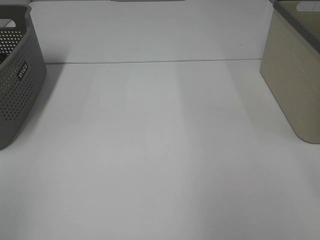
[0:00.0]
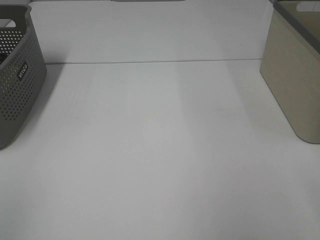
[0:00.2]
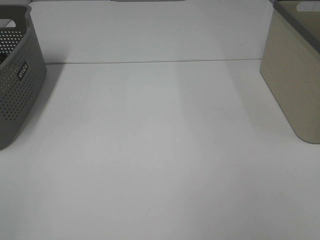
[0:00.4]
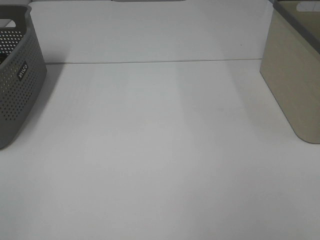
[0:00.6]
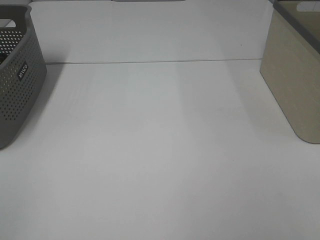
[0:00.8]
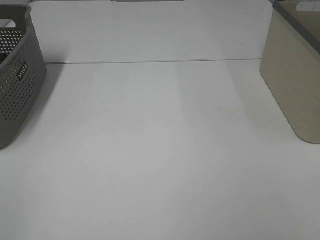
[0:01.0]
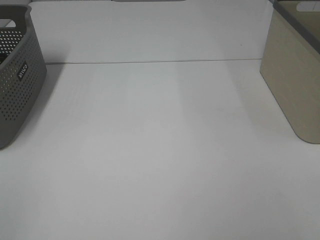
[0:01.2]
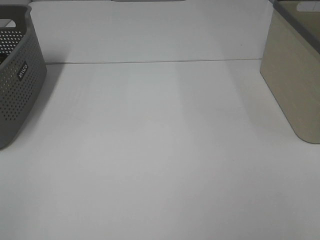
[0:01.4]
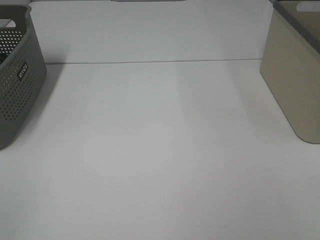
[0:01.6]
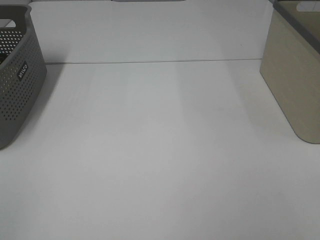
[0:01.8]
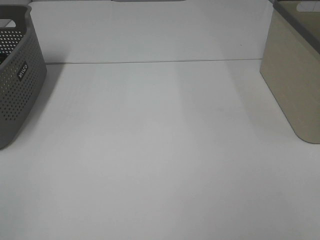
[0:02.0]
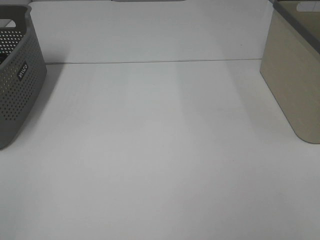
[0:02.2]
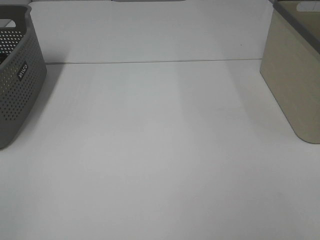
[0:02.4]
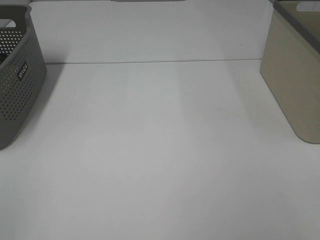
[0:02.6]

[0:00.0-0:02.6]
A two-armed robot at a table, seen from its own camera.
1.2 to 2.6 s: Both grippers stay put.

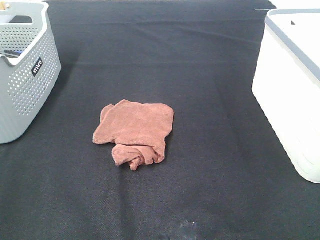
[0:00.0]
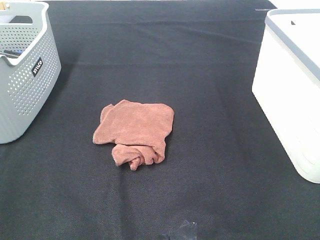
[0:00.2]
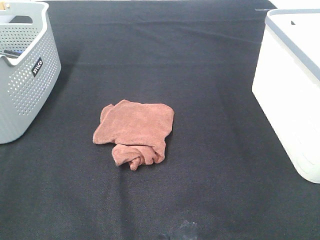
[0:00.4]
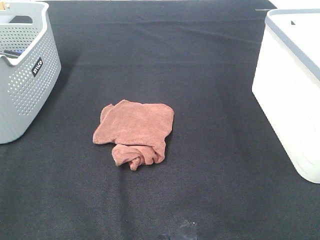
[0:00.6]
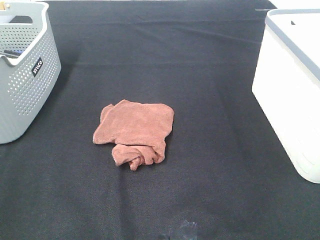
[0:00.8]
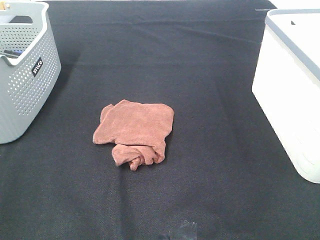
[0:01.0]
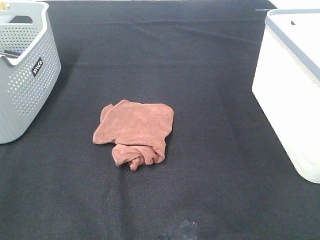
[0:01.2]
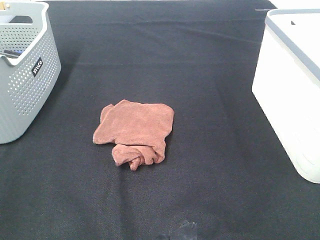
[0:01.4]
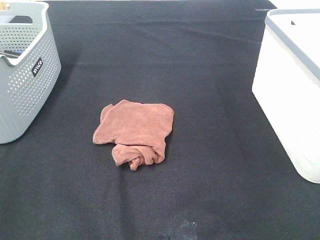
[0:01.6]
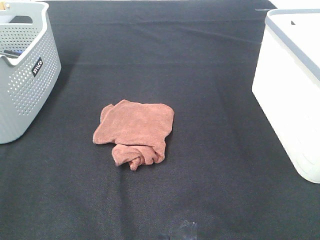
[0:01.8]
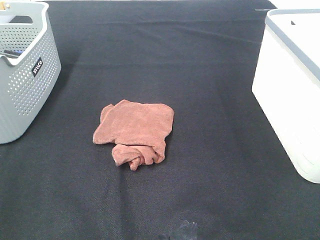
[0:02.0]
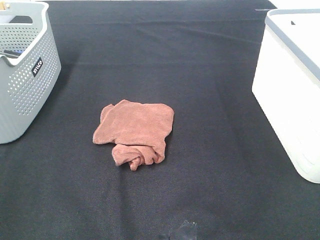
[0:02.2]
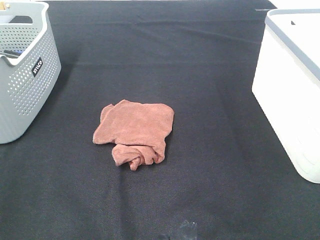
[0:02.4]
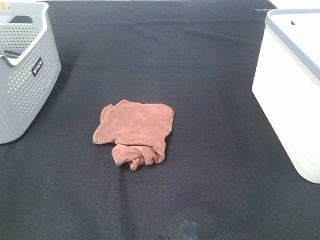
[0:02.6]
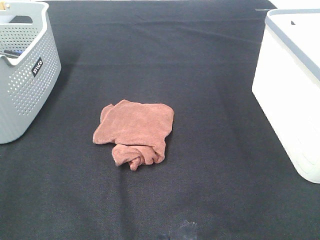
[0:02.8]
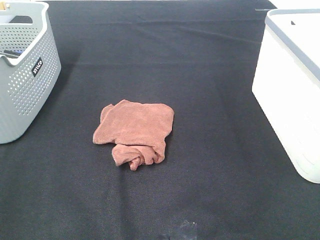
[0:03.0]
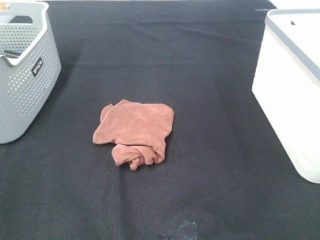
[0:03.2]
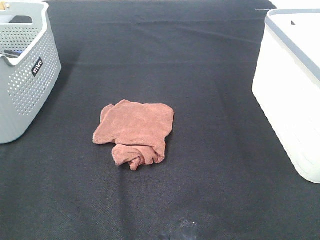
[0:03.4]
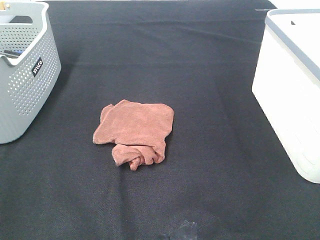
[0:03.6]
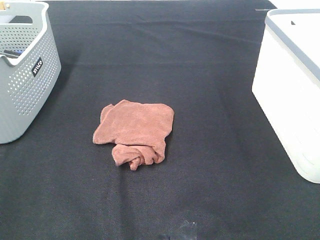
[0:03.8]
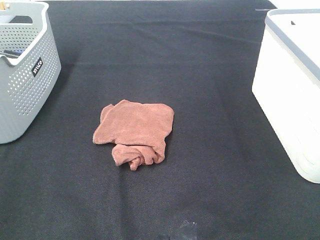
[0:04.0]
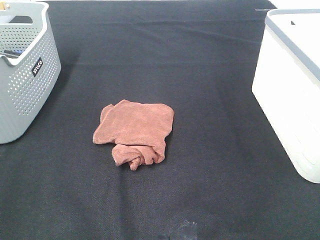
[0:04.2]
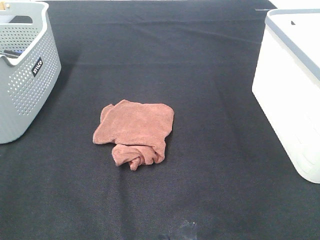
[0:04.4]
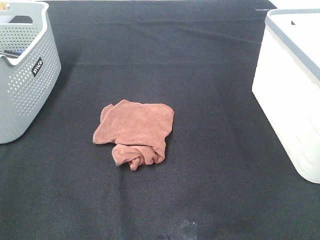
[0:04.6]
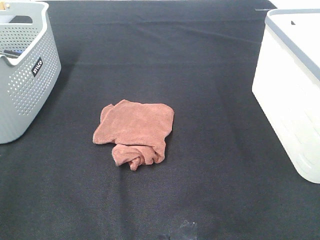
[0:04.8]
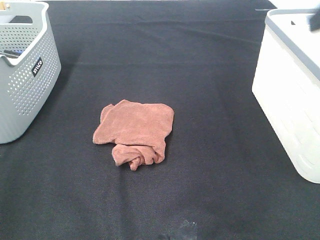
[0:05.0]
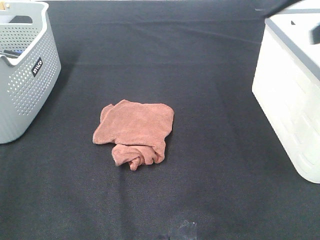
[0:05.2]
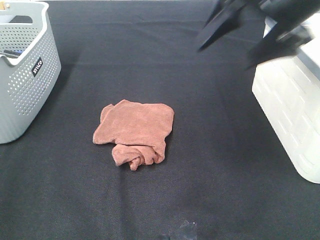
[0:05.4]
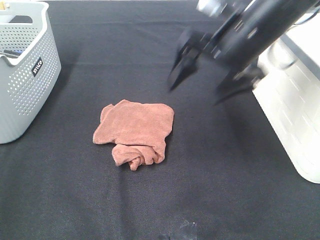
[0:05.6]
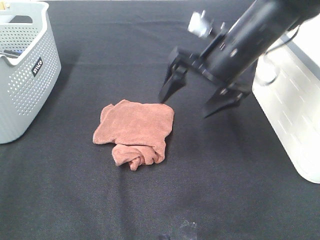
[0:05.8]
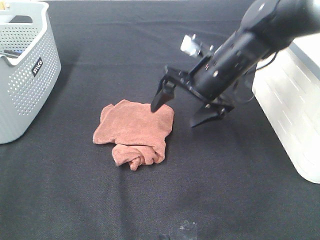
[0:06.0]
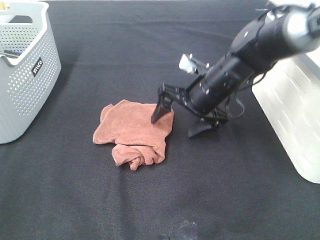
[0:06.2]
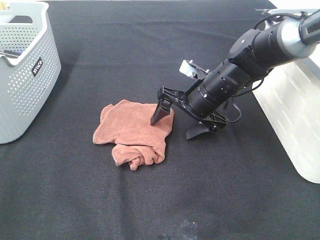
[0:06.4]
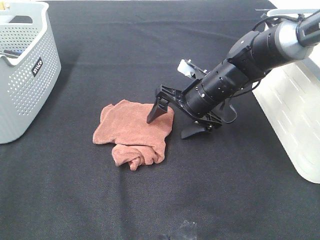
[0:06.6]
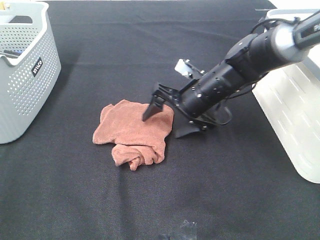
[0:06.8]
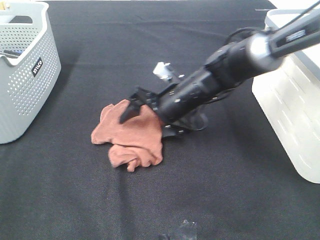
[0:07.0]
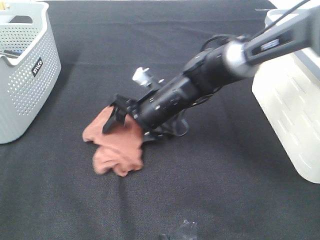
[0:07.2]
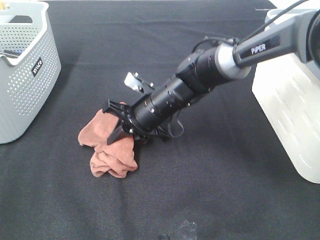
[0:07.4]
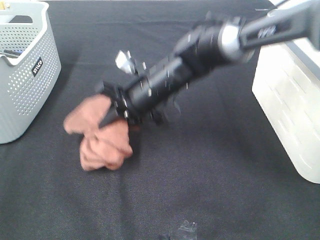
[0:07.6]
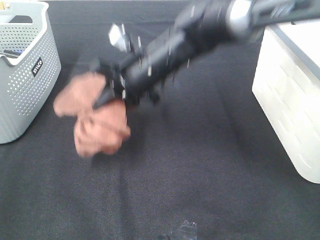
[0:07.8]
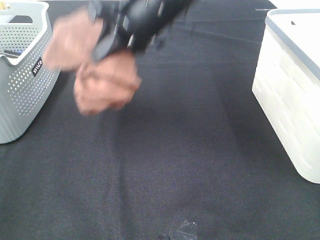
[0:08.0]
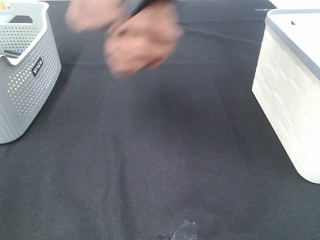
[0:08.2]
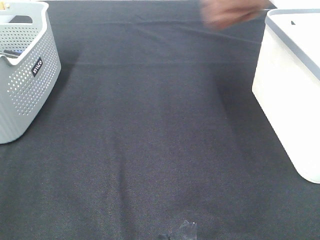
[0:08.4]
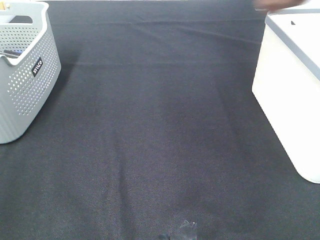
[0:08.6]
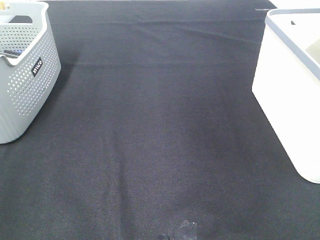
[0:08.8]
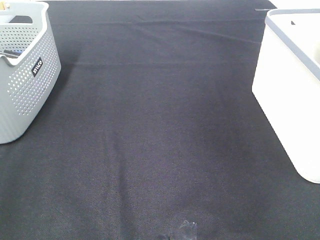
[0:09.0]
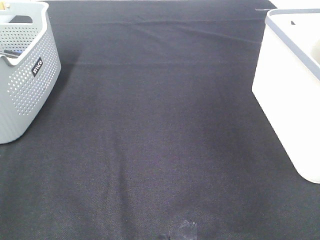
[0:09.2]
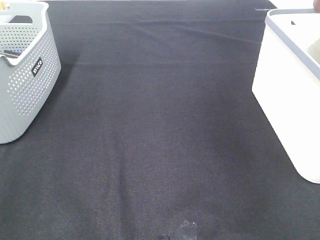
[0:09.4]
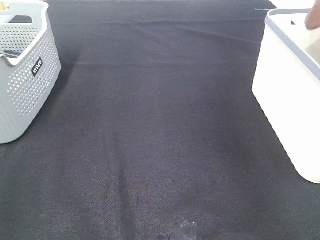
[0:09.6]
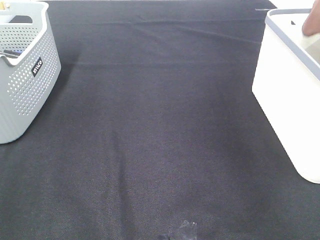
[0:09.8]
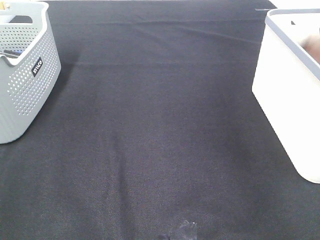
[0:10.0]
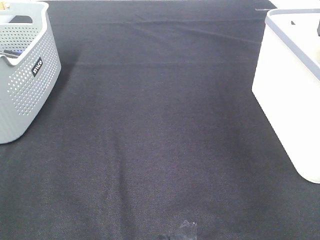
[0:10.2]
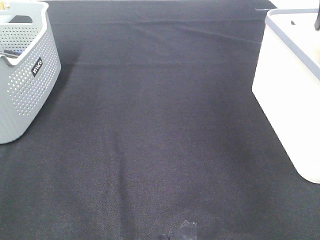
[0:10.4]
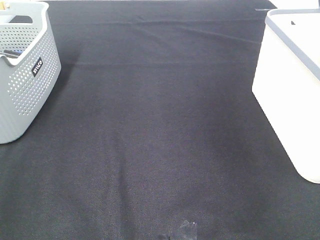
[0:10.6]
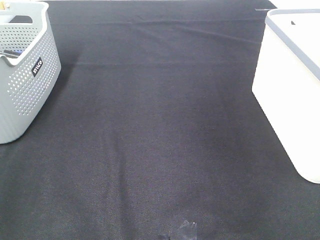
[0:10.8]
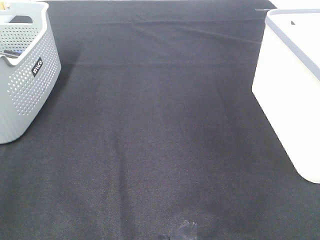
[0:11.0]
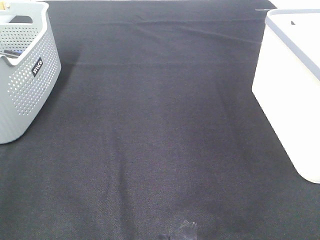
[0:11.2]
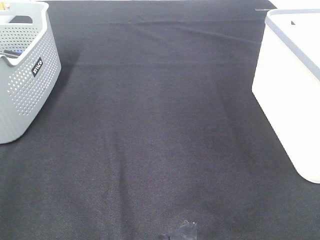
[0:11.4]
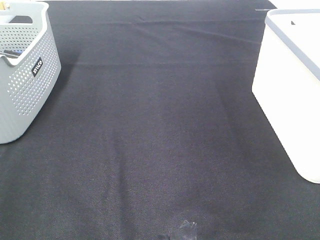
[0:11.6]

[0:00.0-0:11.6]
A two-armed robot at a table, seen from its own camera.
Step, 0.0 to 7.4 s: Right hand: grab the folded brown towel.
Step, 7.6 to 10.0 s: Right hand: place the brown towel in right basket.
0.0 to 2.8 s: Neither gripper changes place.
4.4 to 5.8 s: The right gripper is displaced forward, to the left and downward by about 35 cm.
5.8 to 7.2 s: The right gripper shifts some 15 cm downward and to the left, and closes.
7.2 to 8.8 s: The right gripper shifts approximately 50 cm upward and to the right, and closes.

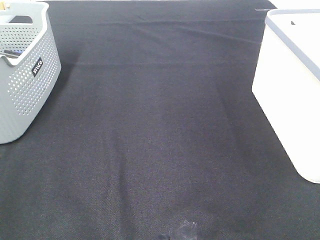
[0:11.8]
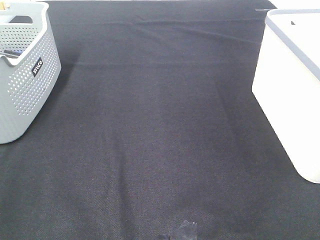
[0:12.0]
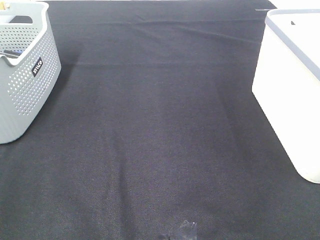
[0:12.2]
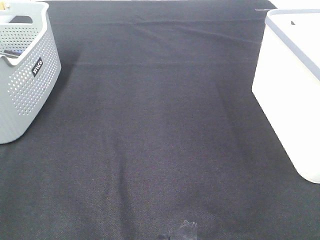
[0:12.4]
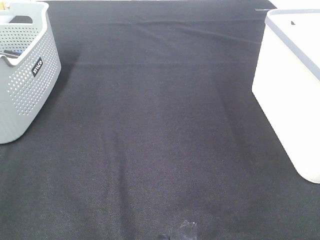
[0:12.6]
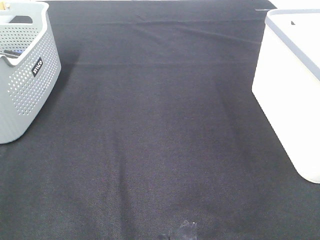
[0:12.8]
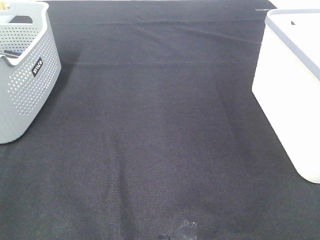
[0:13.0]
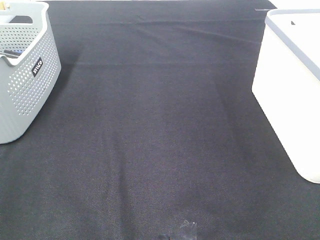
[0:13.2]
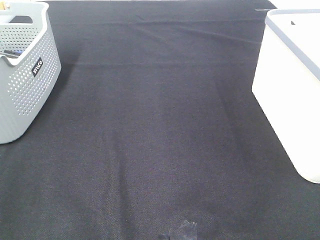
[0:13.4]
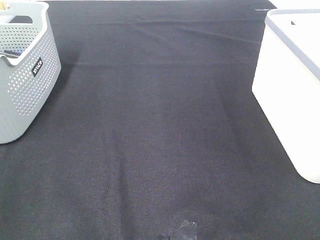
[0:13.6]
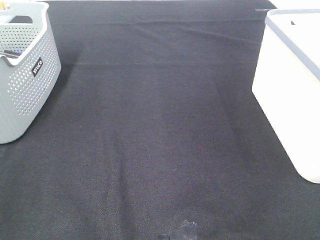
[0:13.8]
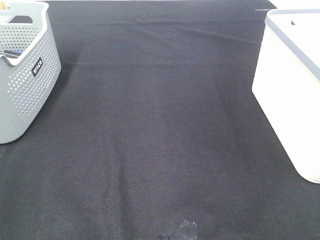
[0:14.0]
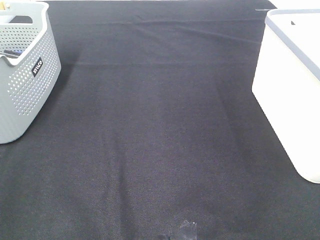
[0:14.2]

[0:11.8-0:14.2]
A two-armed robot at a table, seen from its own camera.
13.0 to 14.2 s: The two grippers keep their place.

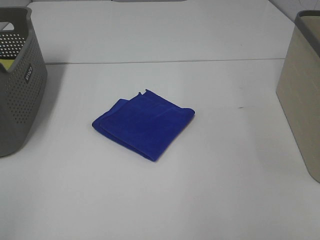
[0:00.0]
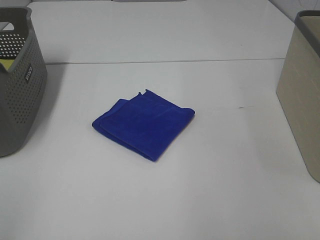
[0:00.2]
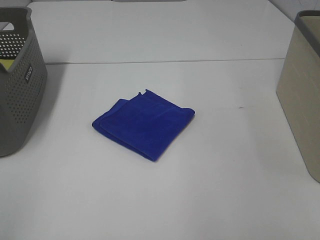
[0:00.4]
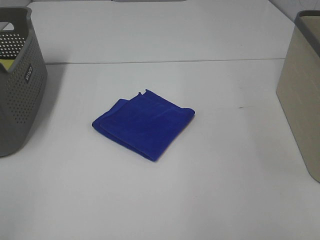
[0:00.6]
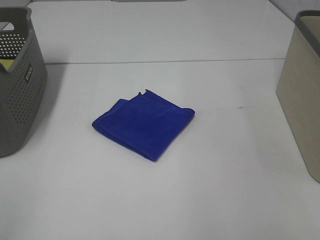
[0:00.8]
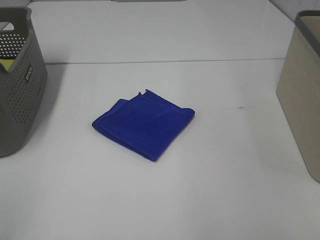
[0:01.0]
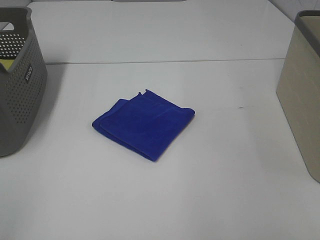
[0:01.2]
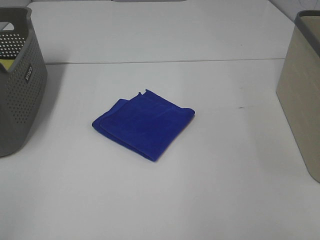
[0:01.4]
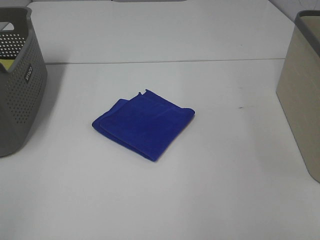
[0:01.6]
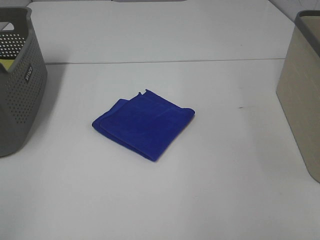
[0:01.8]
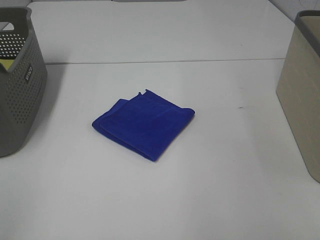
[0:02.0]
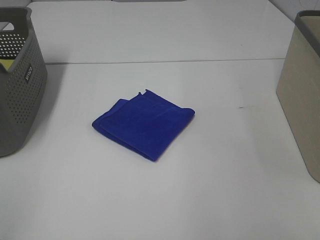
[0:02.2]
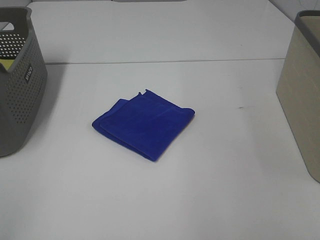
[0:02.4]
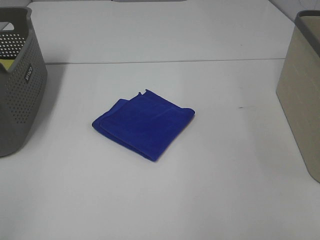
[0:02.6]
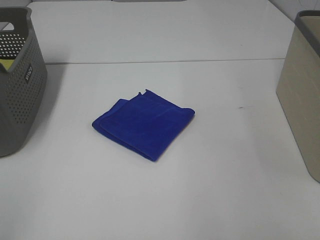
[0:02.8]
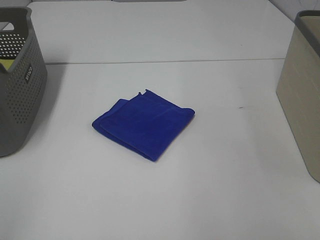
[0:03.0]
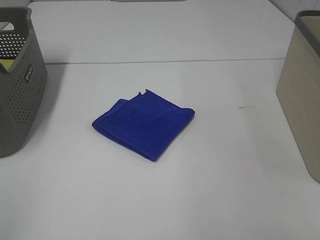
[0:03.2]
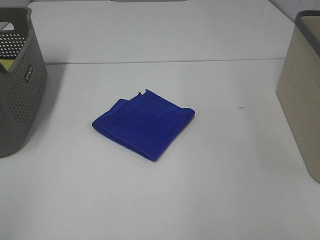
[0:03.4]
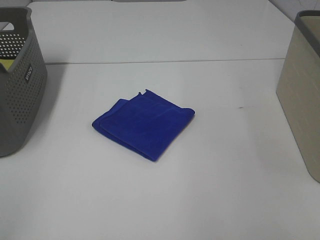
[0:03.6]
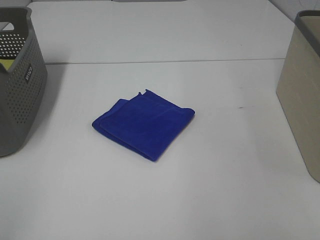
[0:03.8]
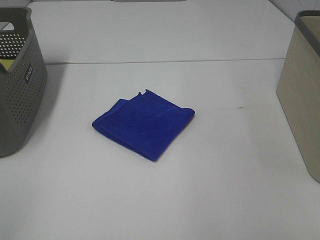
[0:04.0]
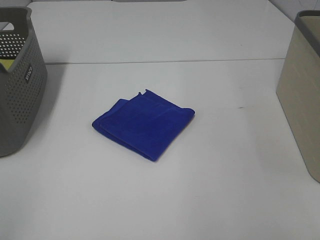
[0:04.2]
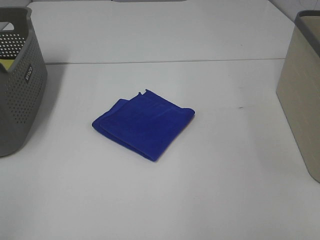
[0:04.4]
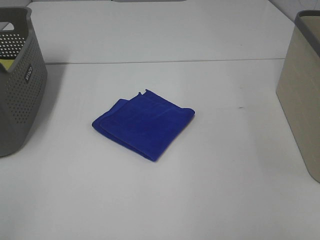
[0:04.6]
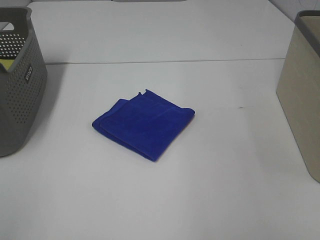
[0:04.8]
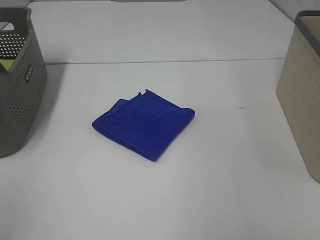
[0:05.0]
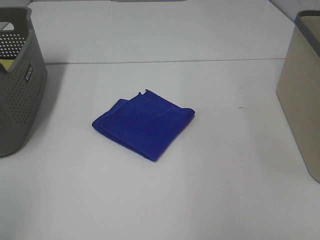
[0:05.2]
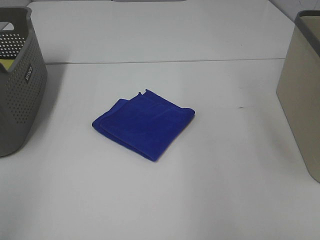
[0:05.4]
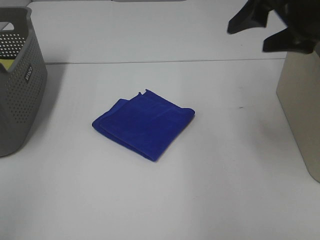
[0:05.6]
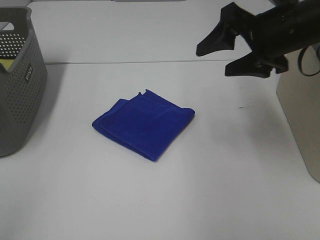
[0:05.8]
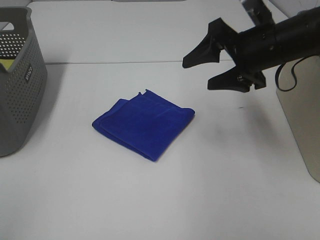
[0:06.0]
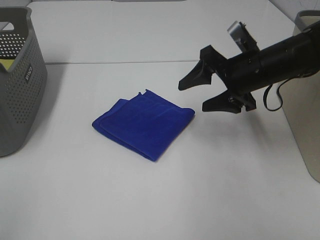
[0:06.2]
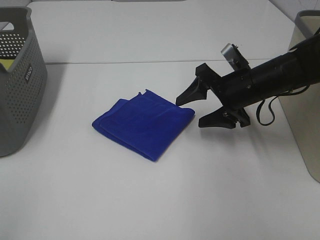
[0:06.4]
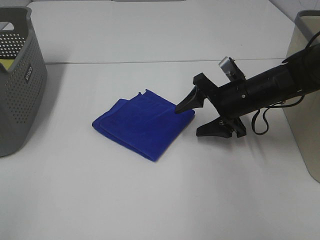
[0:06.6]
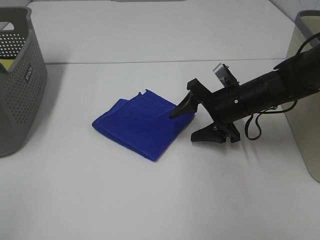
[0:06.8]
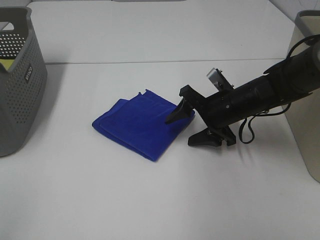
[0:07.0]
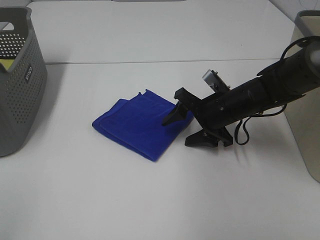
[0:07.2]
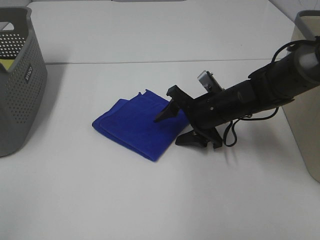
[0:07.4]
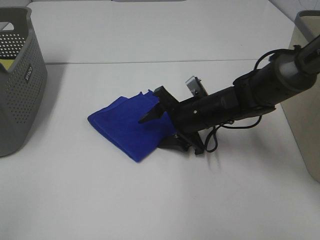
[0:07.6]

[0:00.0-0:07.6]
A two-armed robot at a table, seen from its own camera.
0.0 to 3.0 s: Both grippers stay put.
4.6 to 6.0 s: The right gripper is displaced forward by some 35 cm.
6.0 to 7.6 s: The right gripper shifts roughly 15 cm downward and to the left.
